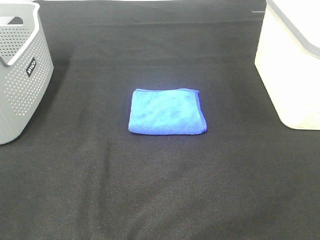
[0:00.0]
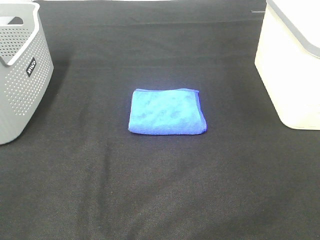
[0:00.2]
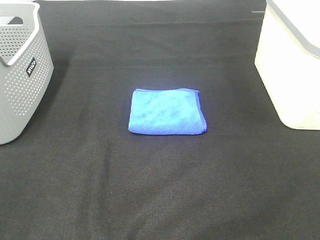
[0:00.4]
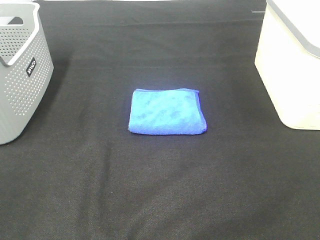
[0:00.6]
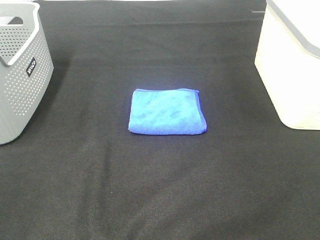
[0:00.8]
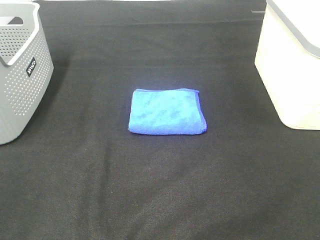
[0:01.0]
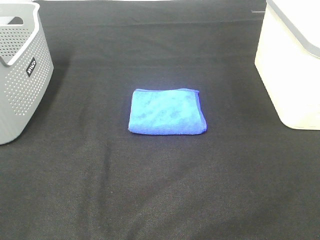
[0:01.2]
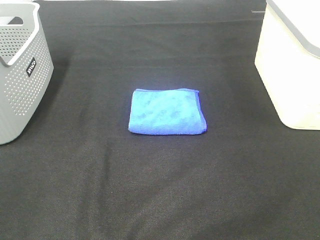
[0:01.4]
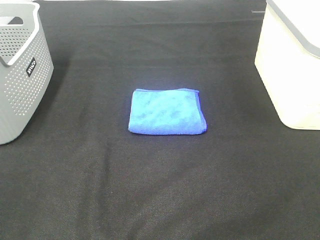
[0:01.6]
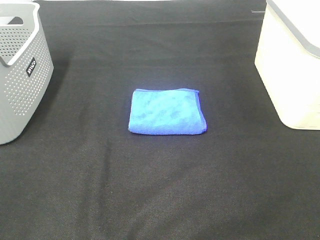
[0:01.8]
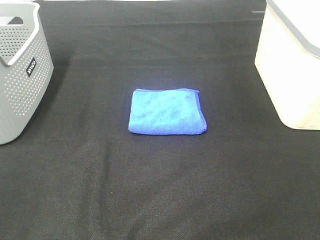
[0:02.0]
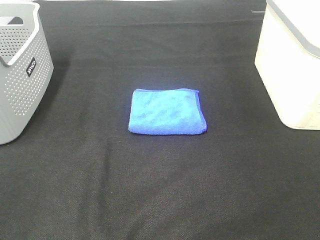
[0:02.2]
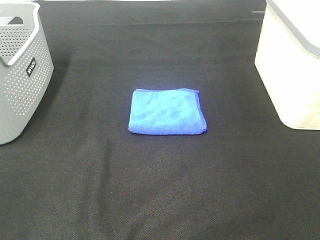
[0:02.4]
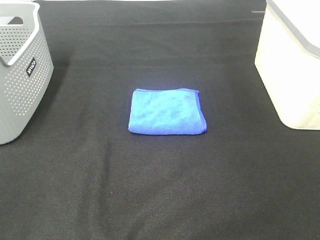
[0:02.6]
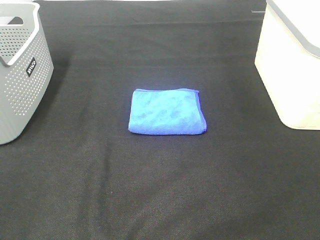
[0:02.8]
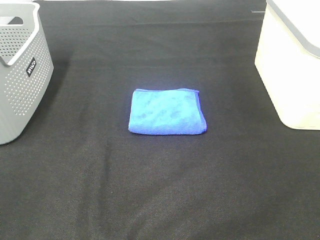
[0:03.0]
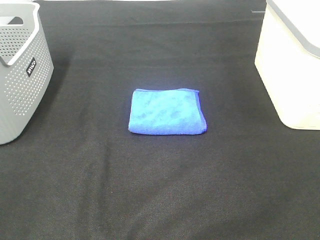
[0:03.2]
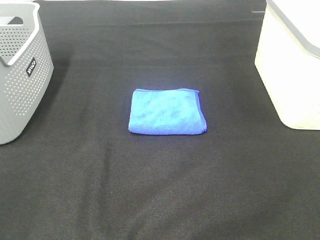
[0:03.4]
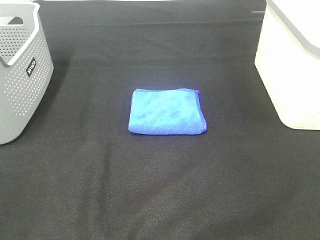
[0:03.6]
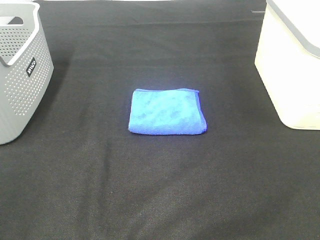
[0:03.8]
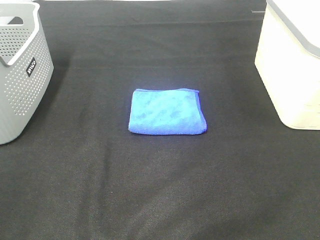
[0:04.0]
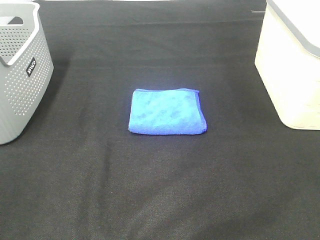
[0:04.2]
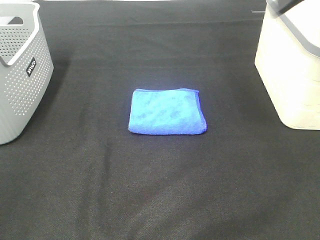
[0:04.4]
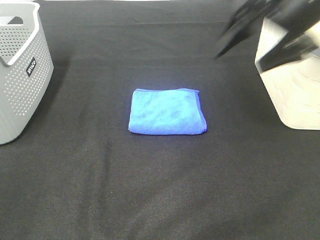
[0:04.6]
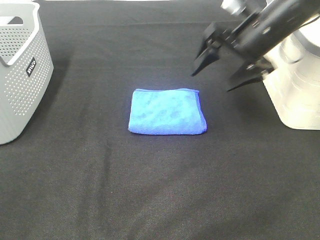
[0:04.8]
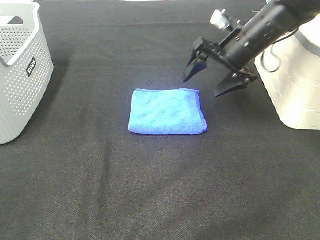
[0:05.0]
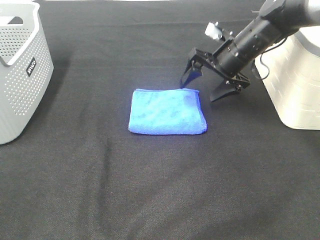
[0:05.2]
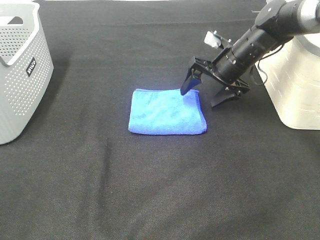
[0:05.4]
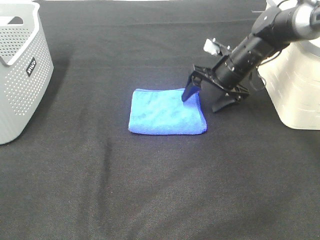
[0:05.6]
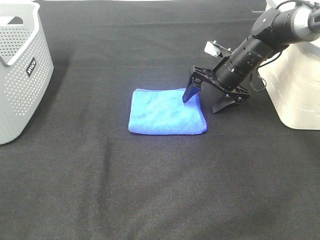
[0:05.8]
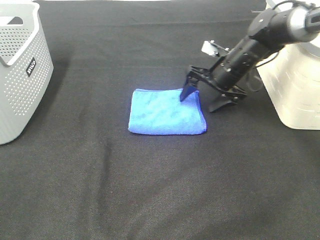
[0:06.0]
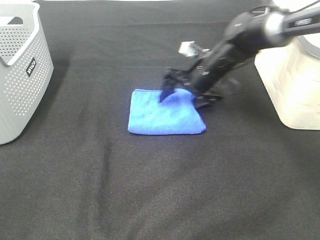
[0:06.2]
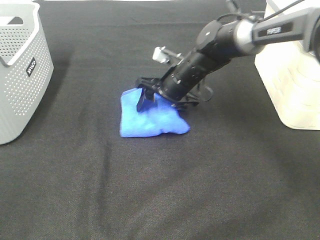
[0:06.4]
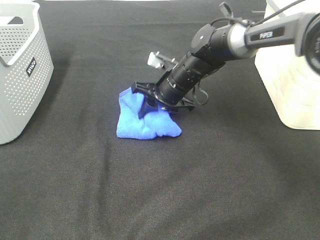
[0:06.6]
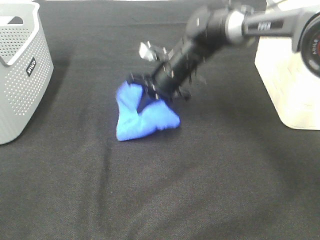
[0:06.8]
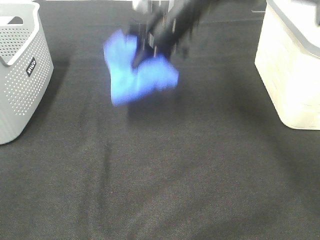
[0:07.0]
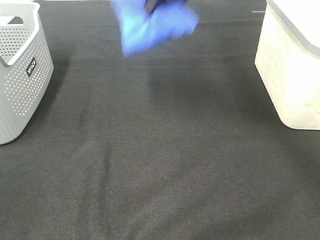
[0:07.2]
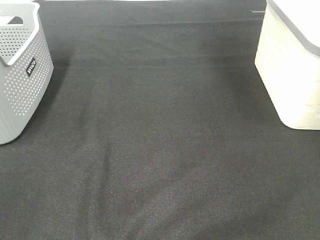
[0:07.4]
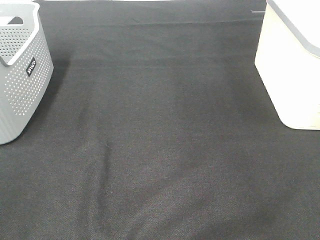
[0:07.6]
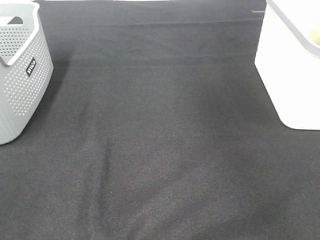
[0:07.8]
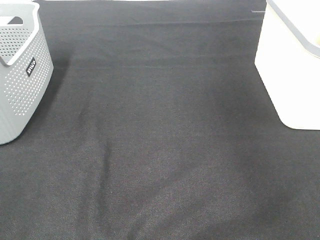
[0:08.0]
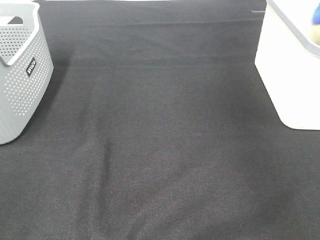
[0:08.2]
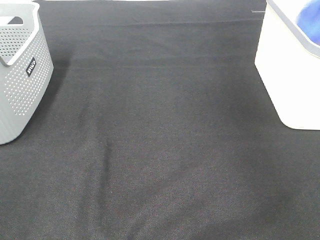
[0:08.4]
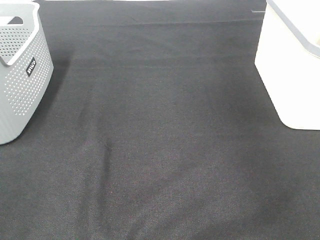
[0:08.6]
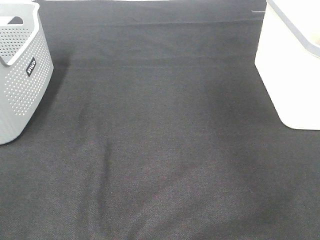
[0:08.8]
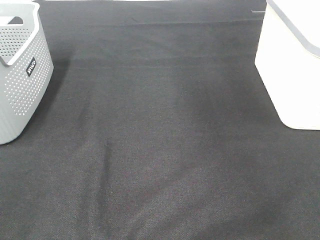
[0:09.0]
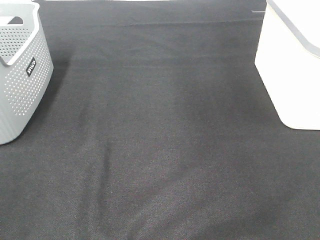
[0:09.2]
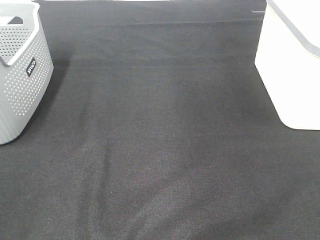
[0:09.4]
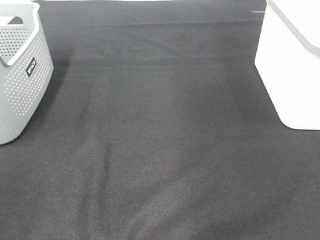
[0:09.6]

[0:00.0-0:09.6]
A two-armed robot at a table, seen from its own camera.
Step, 0:00.0 to 0:06.6: Right hand: grab the folded blue towel.
Step, 0:06.8 to 0:08.4: Right hand: place the blue towel in right basket.
0:00.0 to 0:03.2: Both grippers stay put.
0:03.2 to 0:04.8: The right gripper moves forward, about 40 cm.
0:04.8 to 0:06.4: The right gripper shifts about 20 cm to the left and downward, and closes its fingers.
0:06.4 to 0:08.0: The right gripper travels to the right and upward by about 40 cm, and closes its fingers.

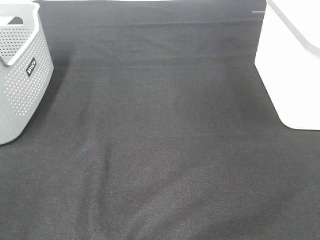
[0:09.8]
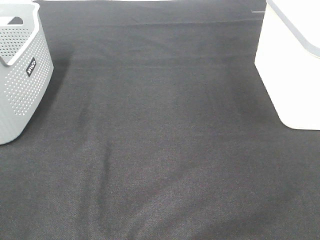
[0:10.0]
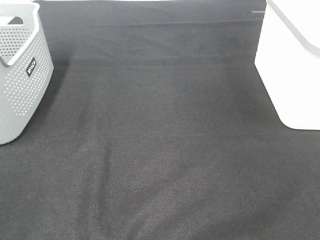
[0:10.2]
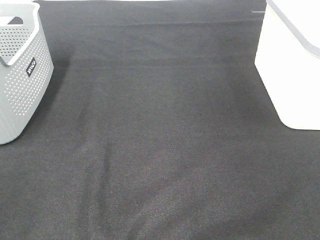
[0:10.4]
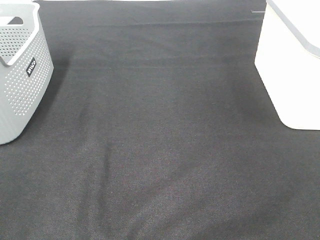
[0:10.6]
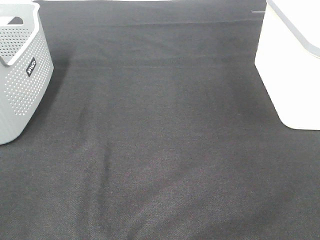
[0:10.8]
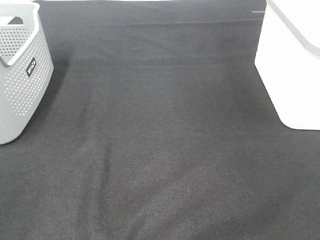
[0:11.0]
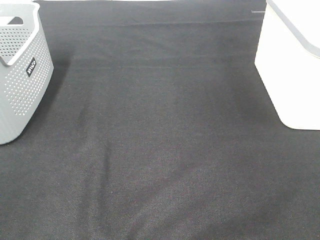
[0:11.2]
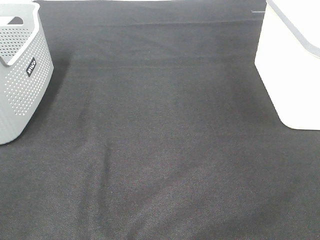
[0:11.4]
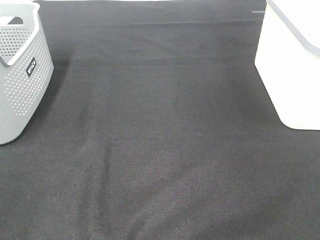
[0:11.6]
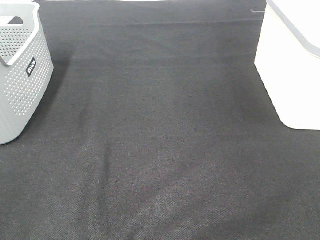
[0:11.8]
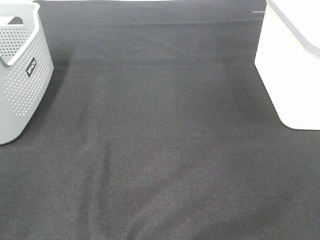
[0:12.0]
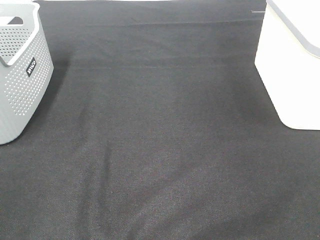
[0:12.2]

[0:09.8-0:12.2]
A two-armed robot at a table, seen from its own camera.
0:11.0 to 0:12.2: The two grippers keep their place.

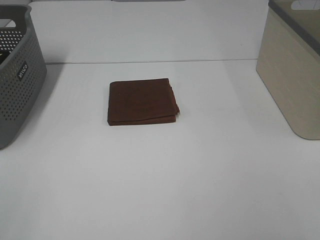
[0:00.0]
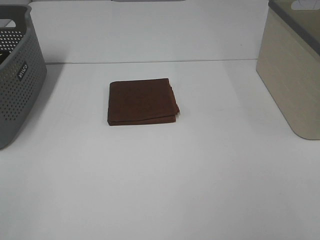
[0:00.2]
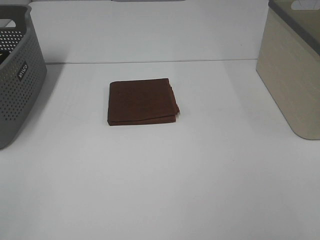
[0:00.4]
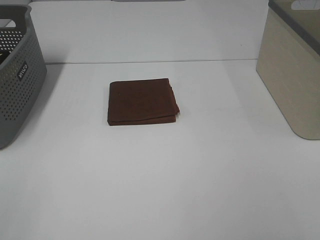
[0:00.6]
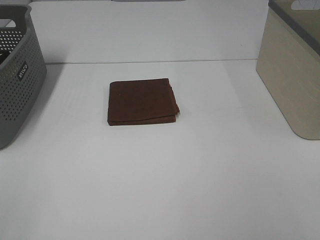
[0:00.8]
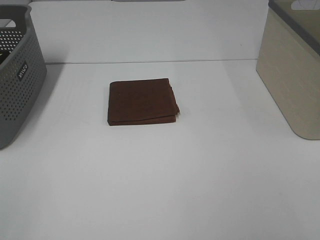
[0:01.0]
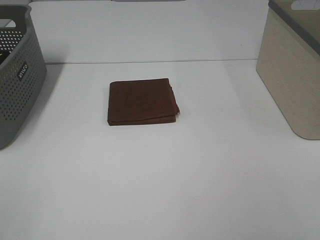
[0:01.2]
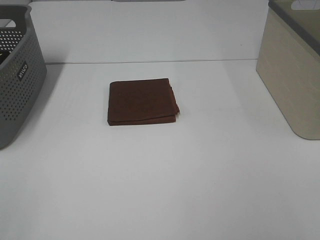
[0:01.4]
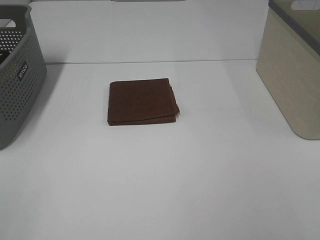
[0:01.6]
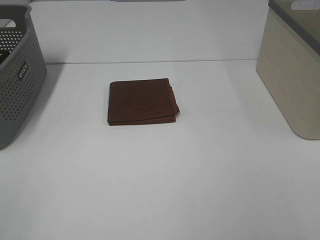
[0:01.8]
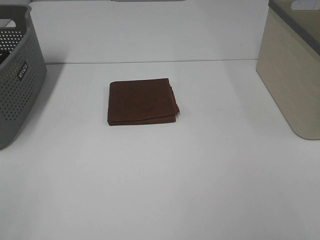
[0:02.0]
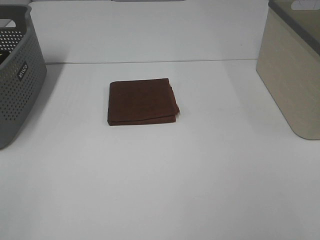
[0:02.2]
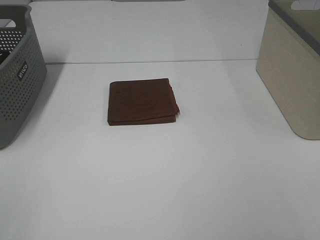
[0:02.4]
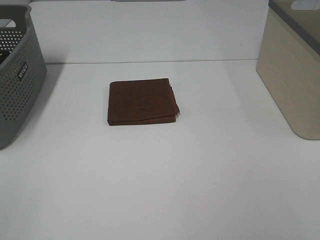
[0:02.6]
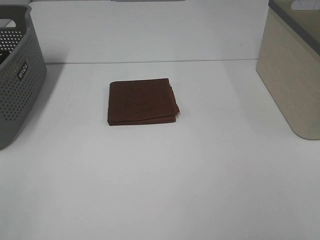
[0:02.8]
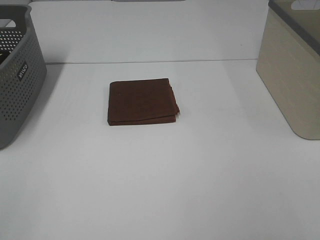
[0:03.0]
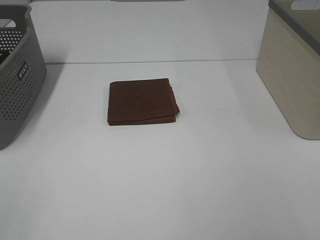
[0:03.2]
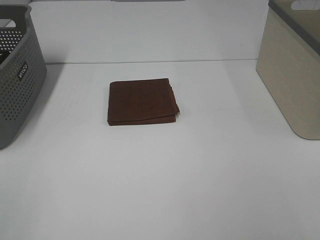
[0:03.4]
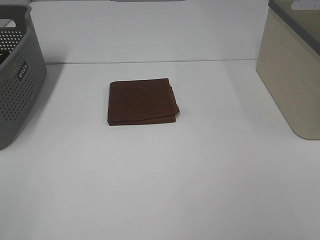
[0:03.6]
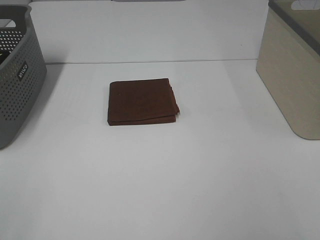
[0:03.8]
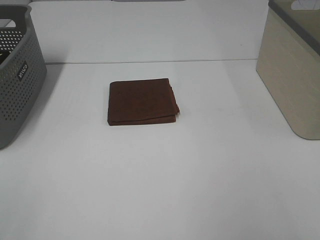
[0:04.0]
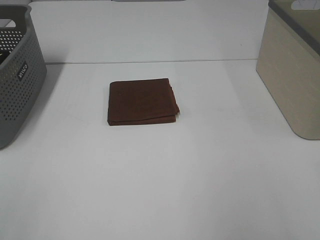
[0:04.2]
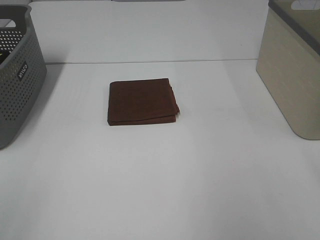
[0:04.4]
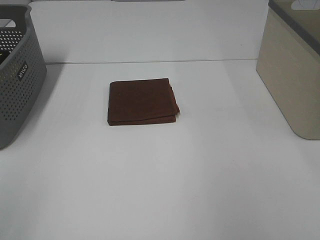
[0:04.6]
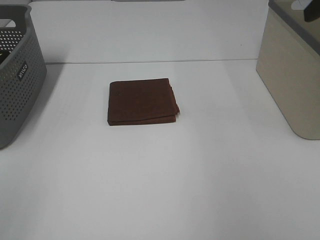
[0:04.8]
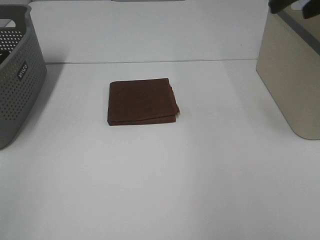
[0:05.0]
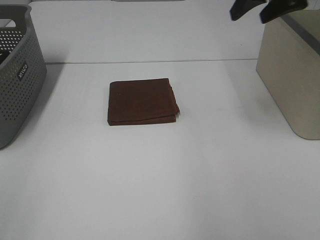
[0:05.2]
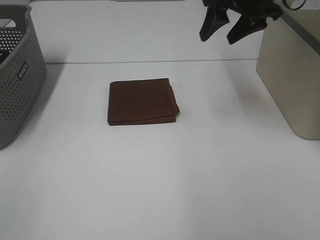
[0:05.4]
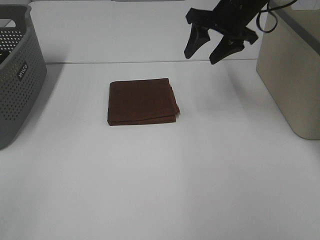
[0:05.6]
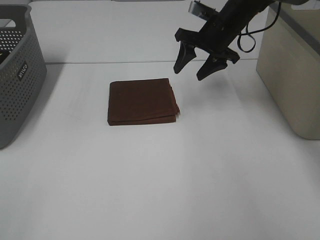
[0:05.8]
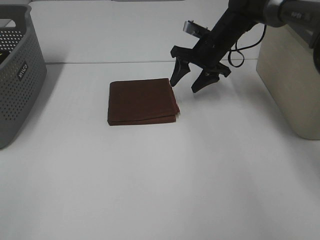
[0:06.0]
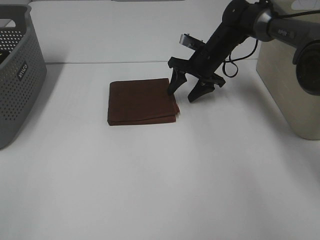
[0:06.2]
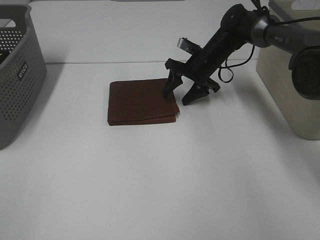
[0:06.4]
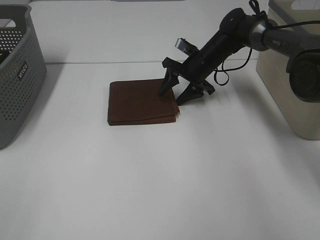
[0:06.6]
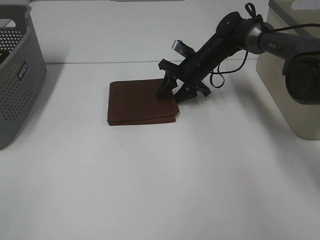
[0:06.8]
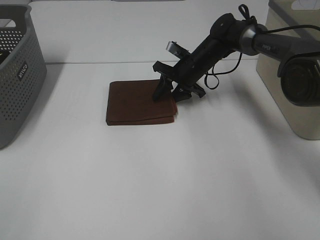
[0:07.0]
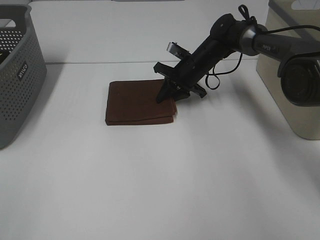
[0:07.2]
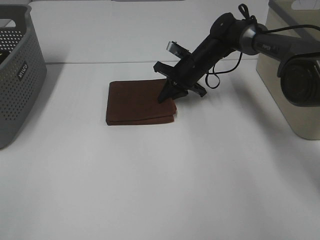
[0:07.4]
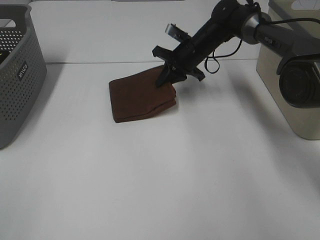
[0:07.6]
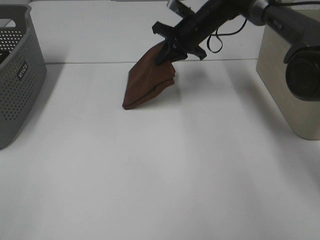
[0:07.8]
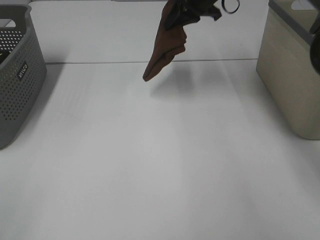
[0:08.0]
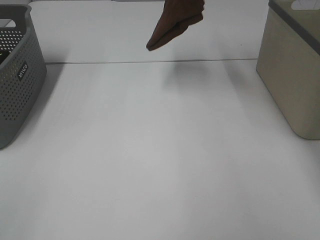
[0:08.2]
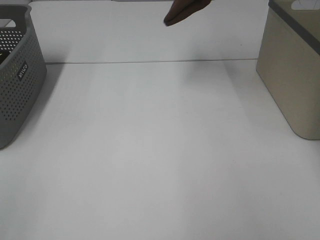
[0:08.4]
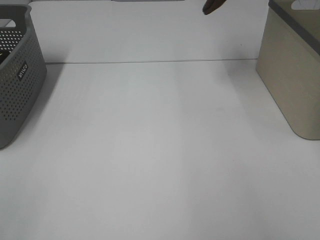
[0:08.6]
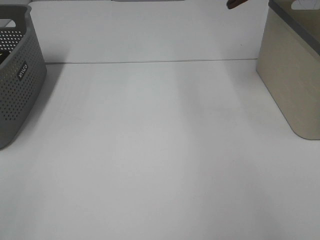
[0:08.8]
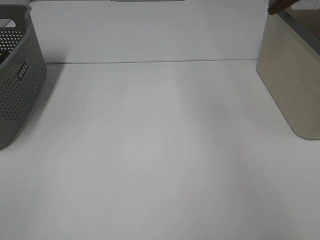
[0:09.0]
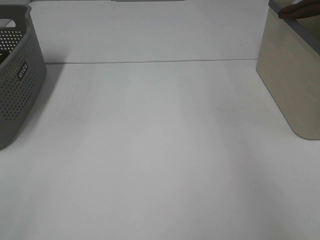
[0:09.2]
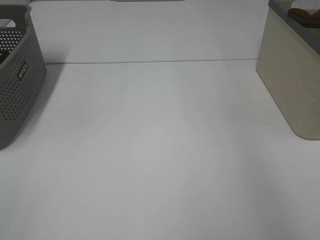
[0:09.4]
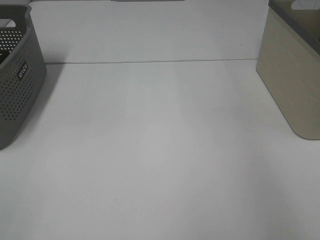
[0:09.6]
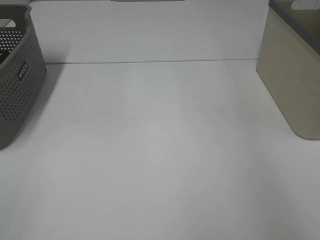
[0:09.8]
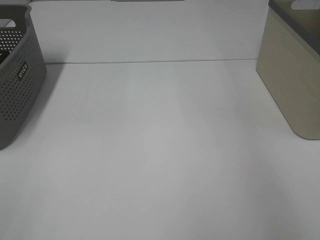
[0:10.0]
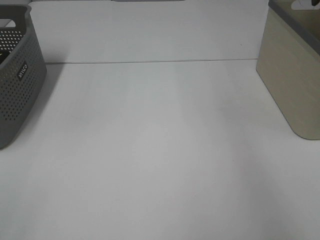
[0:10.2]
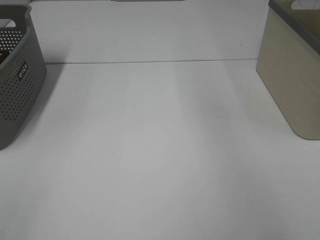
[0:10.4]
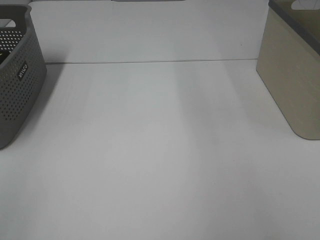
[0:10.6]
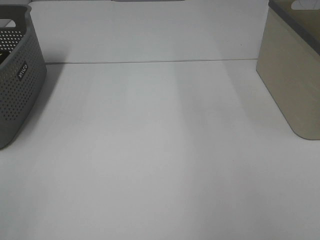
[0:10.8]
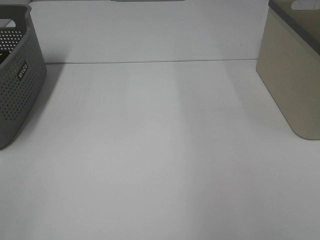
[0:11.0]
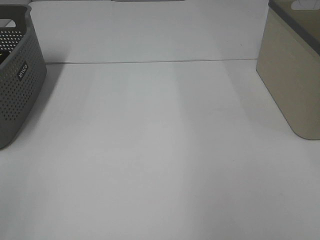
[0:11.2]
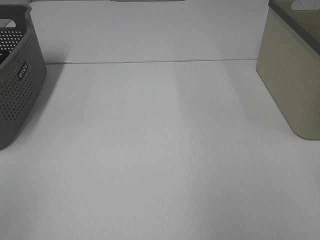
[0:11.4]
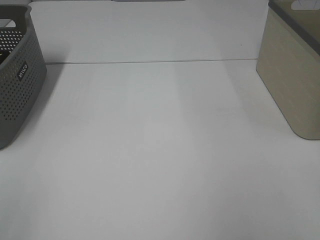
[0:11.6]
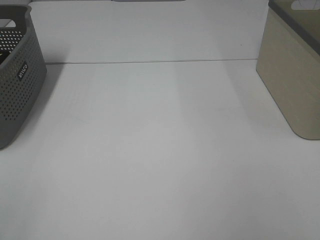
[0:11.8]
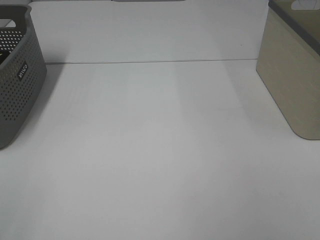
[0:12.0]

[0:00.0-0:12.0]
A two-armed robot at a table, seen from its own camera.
Step, 0:00.0 to 0:07.2: Right hand: grab the folded brown towel.
Step, 0:07.4 to 0:10.0: Right hand: place the brown towel in right basket.
0:00.0 to 0:03.0: Neither gripper changes place.
0:04.4 to 0:06.0: The right gripper shifts some 40 cm forward, downward and to the left.
0:06.0 to 0:07.6: The right gripper closes up.
0:07.6 to 0:09.0: The right gripper travels upward and to the right by approximately 40 cm.
